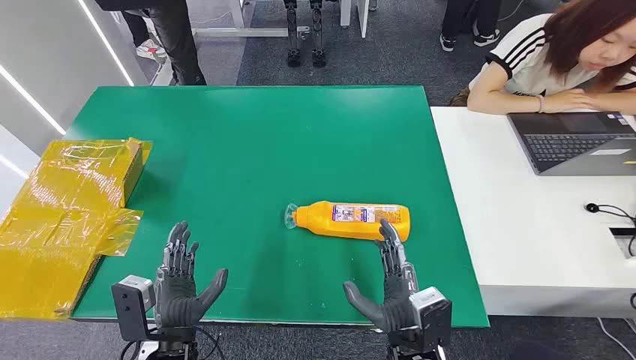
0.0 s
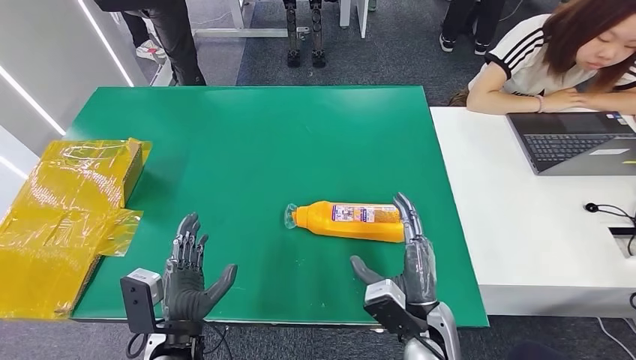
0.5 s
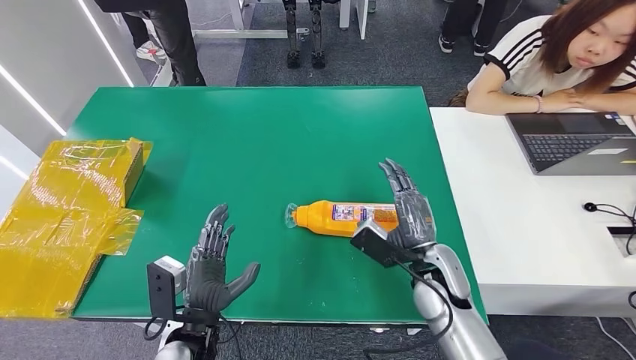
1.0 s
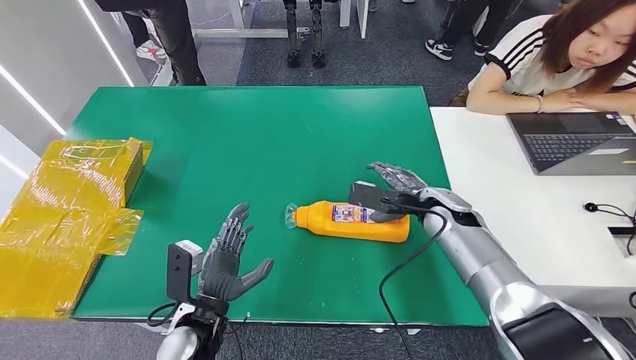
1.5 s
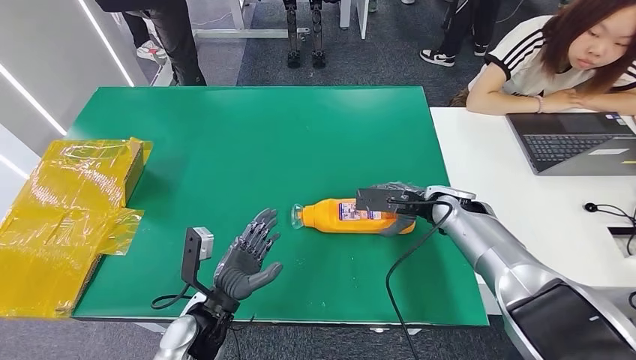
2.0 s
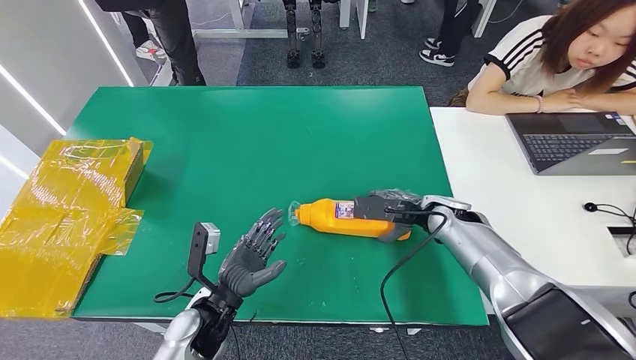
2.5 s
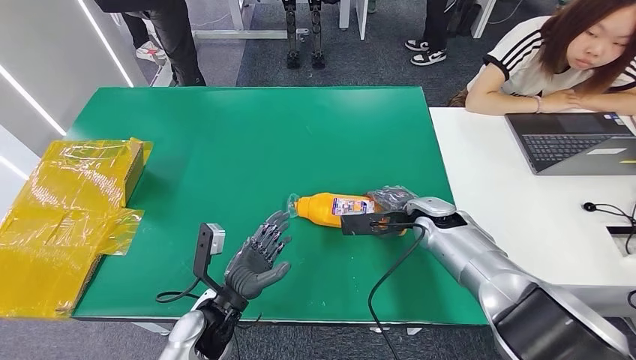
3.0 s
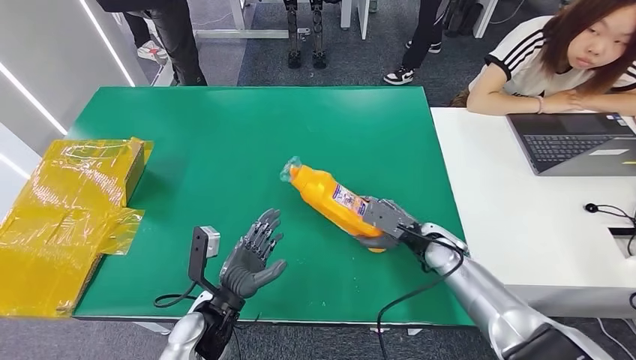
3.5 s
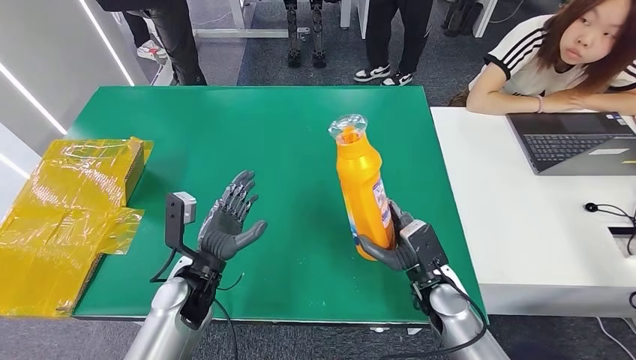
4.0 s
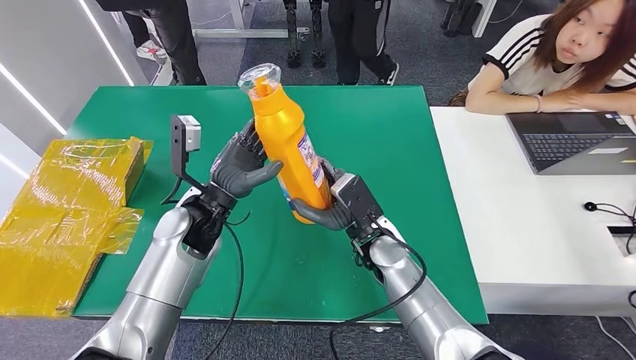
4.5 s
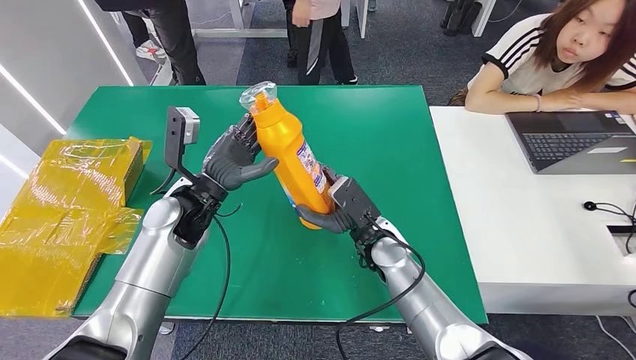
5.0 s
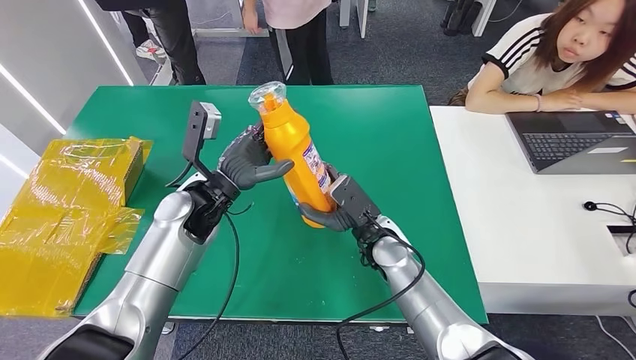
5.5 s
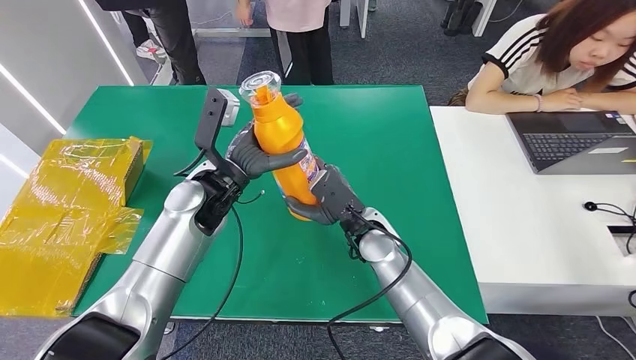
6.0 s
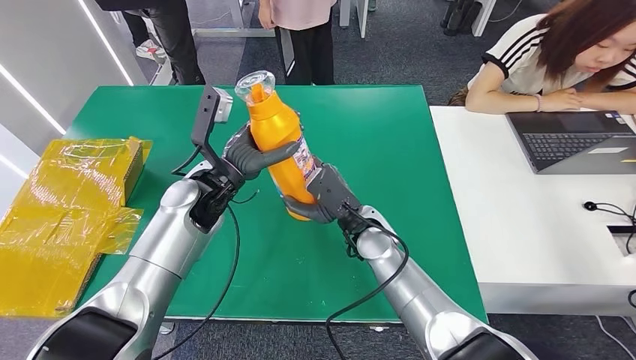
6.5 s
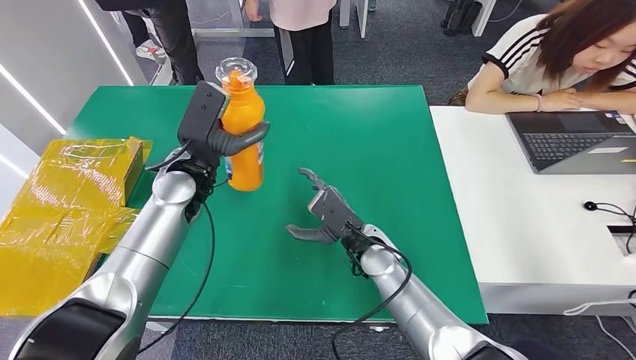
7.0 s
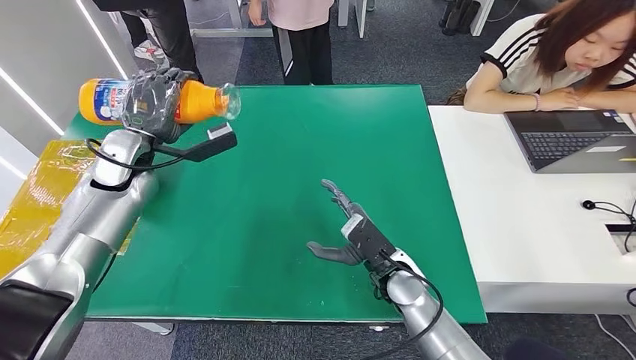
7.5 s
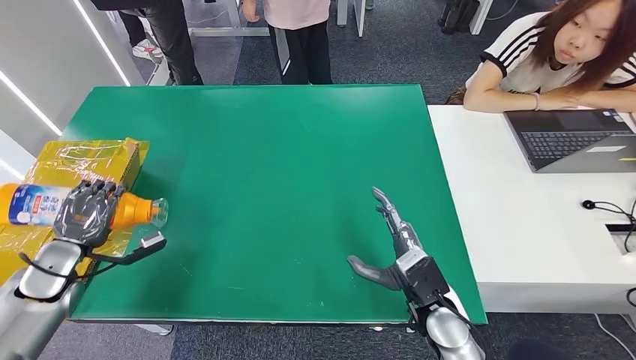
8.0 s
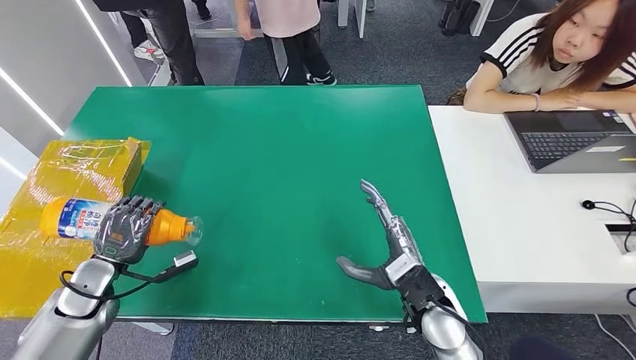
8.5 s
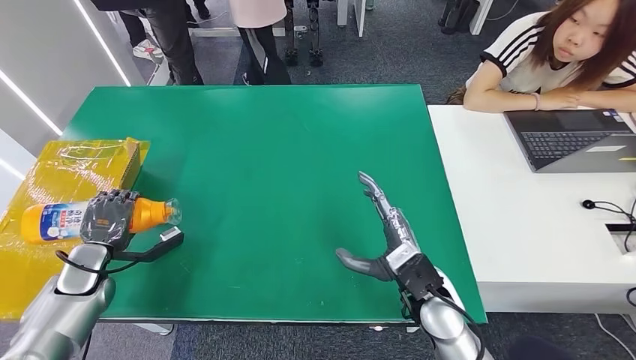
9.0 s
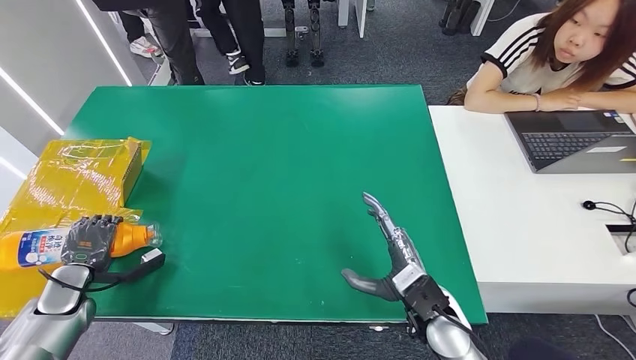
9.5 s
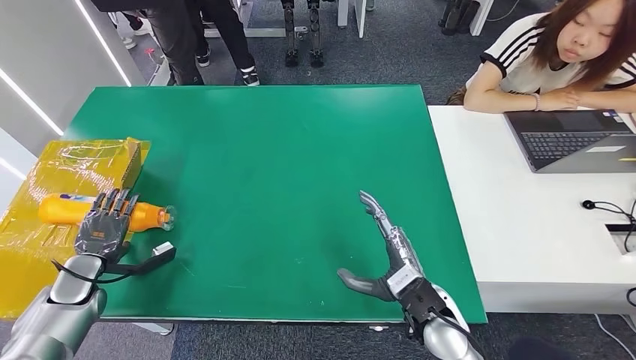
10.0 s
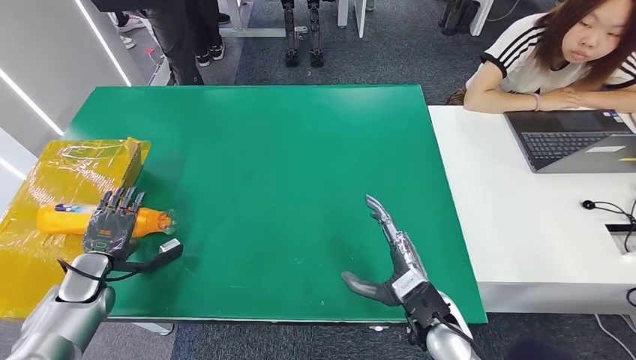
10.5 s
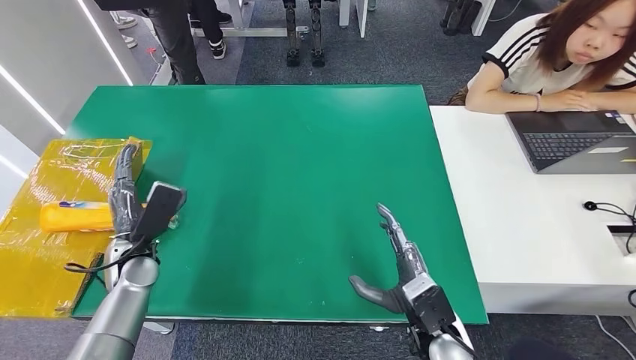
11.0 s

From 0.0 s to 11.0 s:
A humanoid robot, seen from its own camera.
Step, from 0.0 s to 4.0 s: Pick up the bottle from the table.
Step, from 4.5 s to 11.0 s: Turn the bottle to the front side.
From 2.0 s to 3.5 s: The right hand shifts approximately 10 cm downward and backward.
